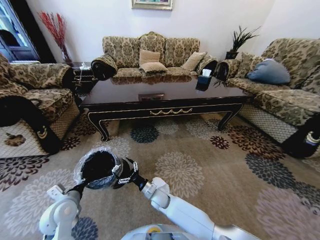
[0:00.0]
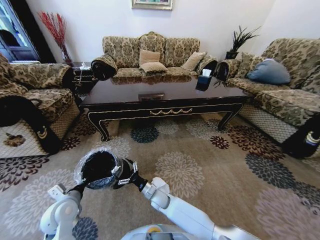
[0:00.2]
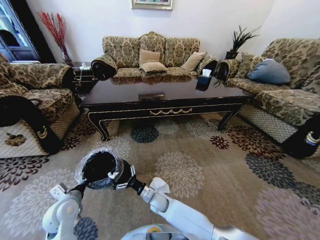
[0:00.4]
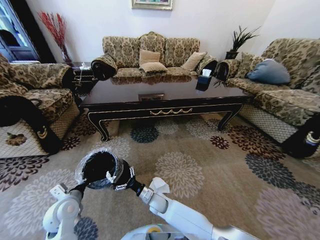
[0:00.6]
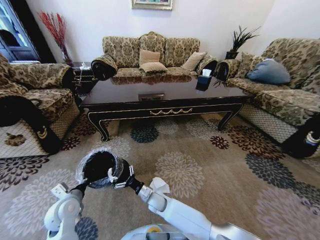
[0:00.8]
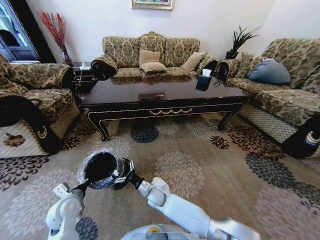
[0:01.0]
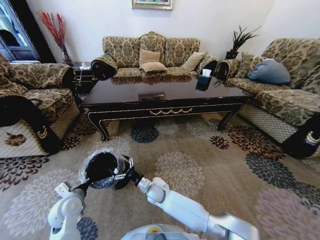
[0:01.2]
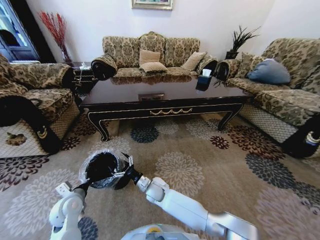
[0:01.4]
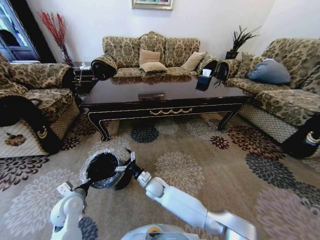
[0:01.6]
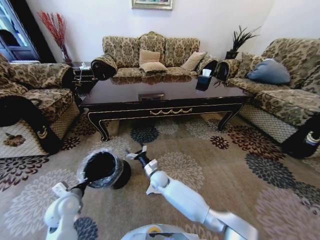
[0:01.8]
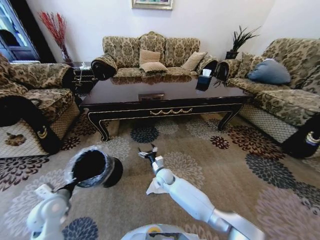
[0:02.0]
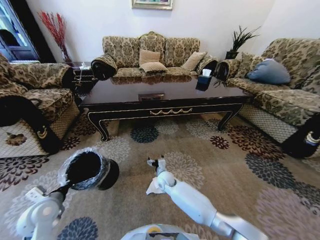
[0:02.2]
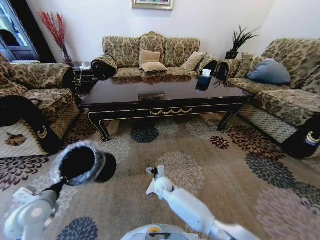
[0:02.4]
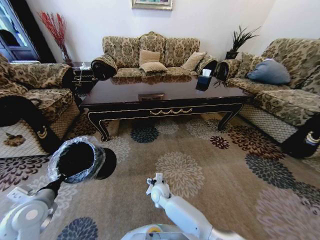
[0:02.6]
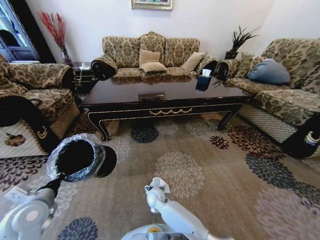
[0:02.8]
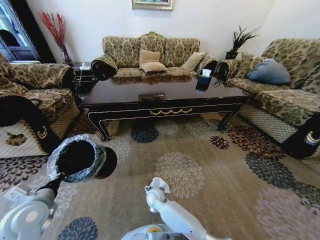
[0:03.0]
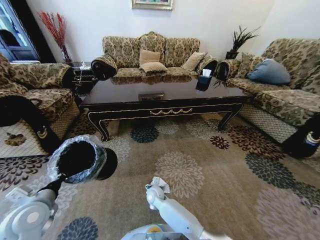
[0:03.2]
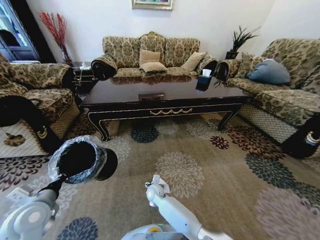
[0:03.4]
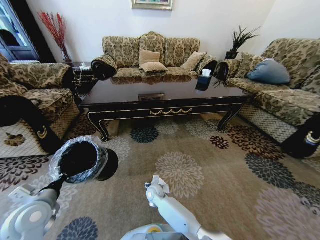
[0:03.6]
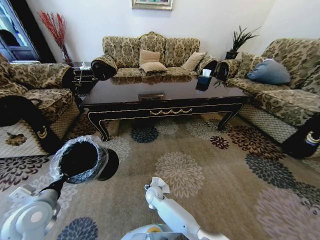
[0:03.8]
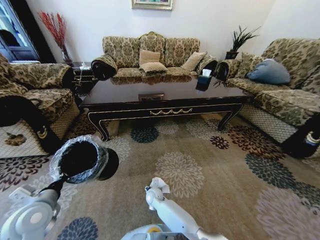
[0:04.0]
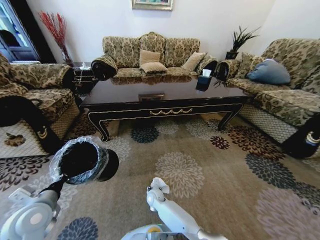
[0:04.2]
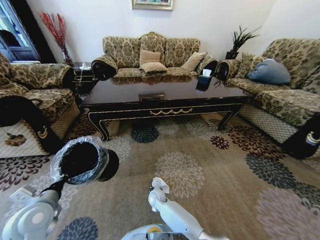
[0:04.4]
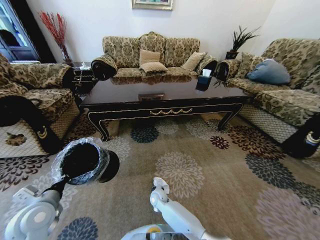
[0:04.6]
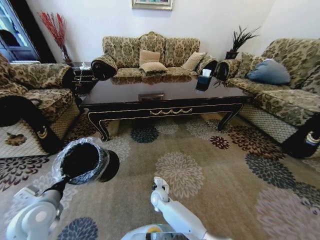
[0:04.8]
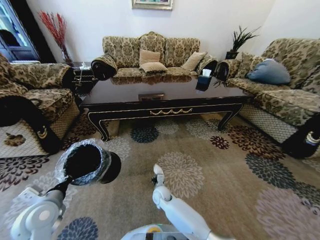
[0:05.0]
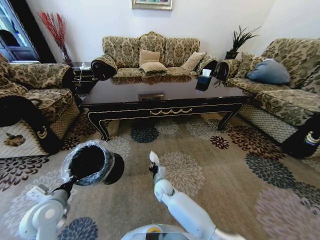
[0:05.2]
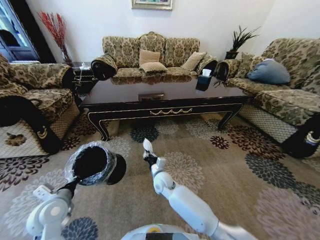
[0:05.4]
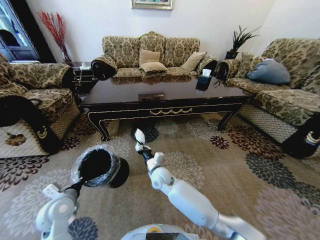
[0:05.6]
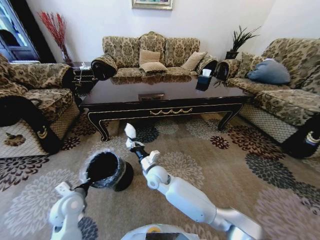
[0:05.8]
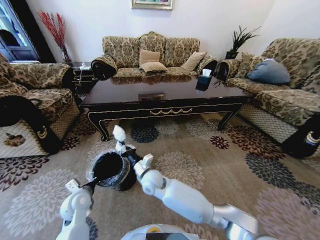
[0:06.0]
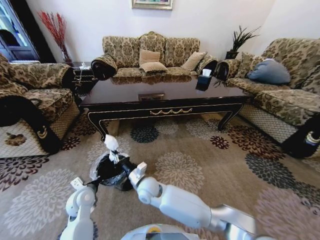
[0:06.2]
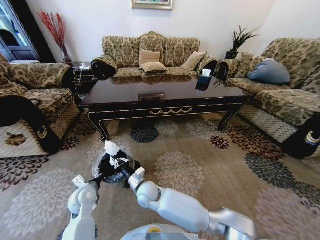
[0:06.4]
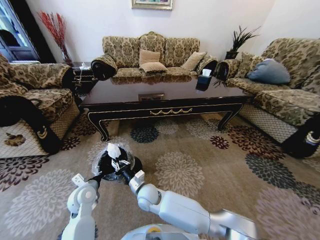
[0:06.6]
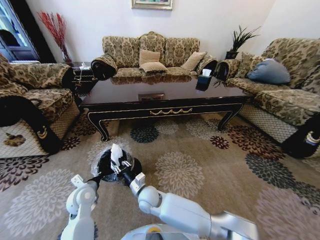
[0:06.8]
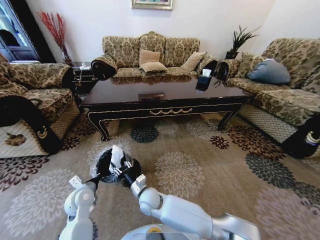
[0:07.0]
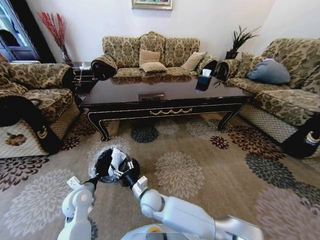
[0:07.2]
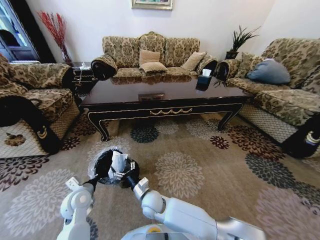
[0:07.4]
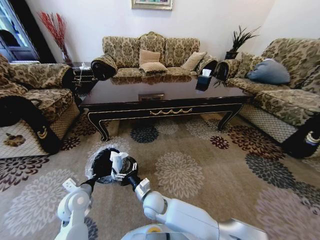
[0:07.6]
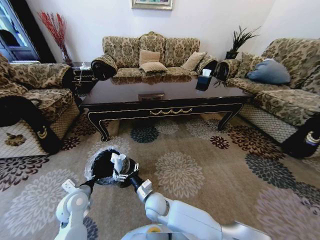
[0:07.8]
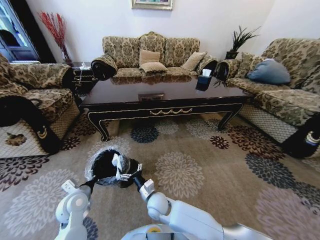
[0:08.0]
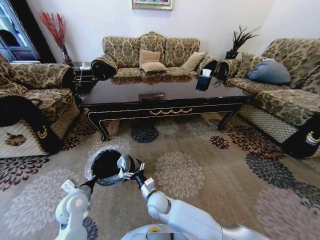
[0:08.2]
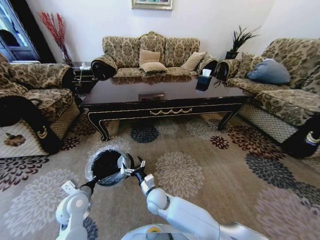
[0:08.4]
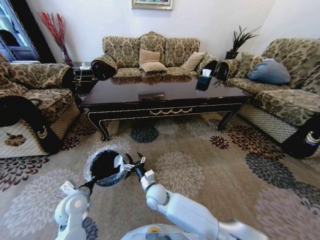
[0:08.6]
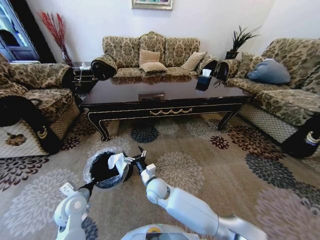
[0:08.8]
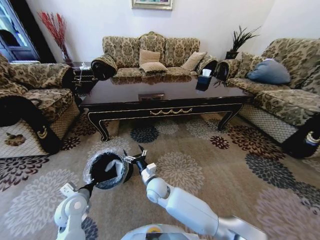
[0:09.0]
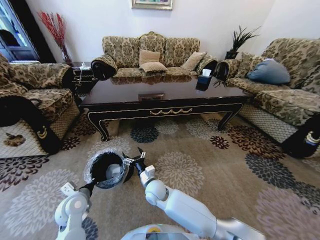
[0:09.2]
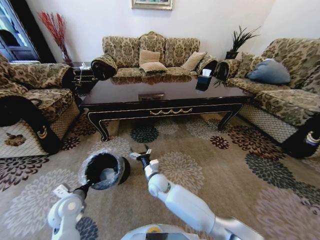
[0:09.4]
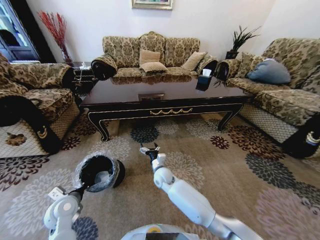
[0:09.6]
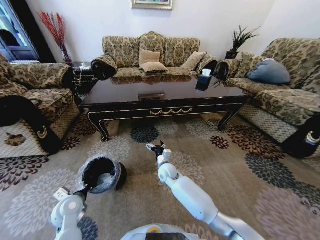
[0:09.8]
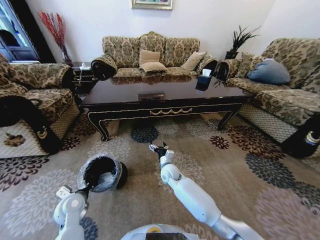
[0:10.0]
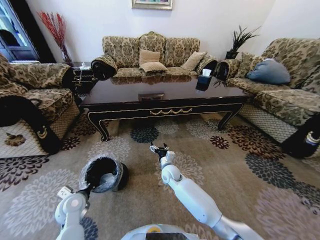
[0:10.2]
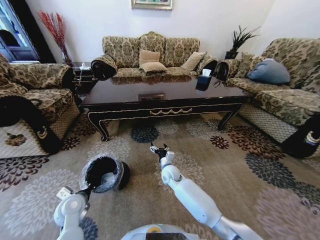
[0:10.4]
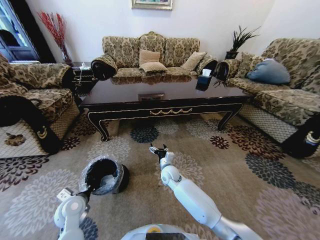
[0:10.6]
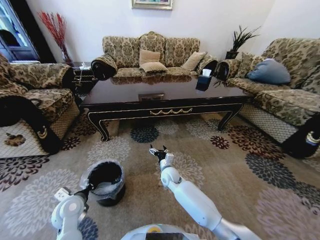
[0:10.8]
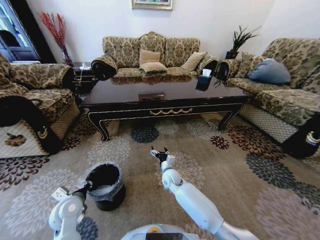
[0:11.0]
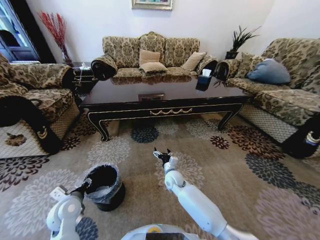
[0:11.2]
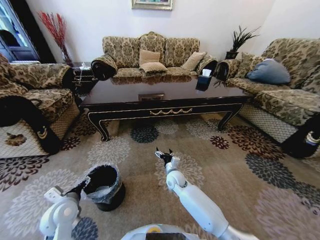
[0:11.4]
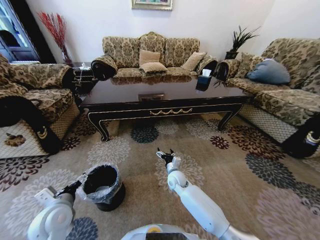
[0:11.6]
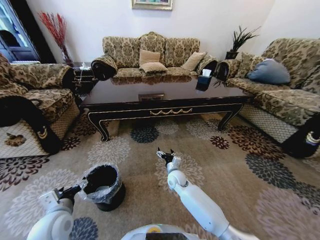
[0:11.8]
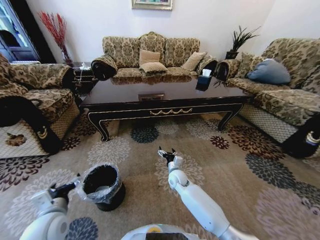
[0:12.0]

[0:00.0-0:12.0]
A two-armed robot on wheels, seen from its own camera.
Task of the whole recording: Move to the front of the table and pick up the trash from the floor, then place it into the trash bin.
0:00.0 to 0:01.6: The right gripper ends up about 5 cm from where it was.
0:01.6 to 0:03.0: The left gripper heads upward, covering approximately 10 cm.
0:03.0 to 0:04.4: The right gripper closes its fingers.
0:04.4 to 0:06.0: The left gripper travels downward, forward and to the right by roughly 15 cm. Meanwhile the right gripper goes about 20 cm upward, and closes up.
0:06.0 to 0:07.6: The right gripper is displaced downward and backward by some 10 cm, and opens.
0:07.6 to 0:09.0: The right gripper shifts some 5 cm forward.
0:09.0 to 0:10.4: The right gripper travels forward and to the right by some 10 cm.
0:10.4 to 0:12.0: The left gripper travels upward and backward by some 10 cm, and opens its fingers.

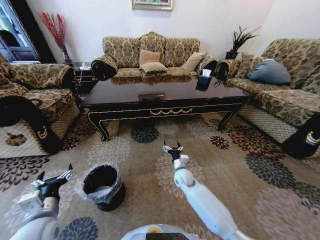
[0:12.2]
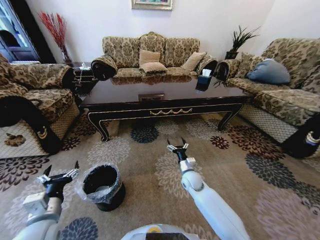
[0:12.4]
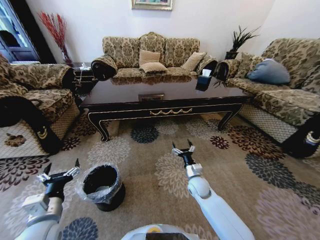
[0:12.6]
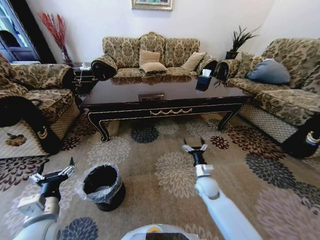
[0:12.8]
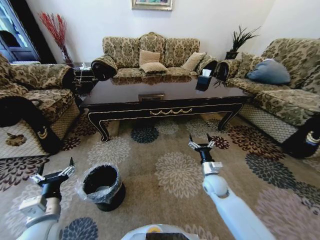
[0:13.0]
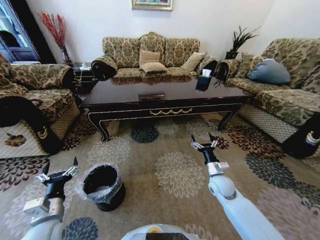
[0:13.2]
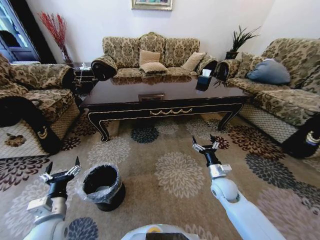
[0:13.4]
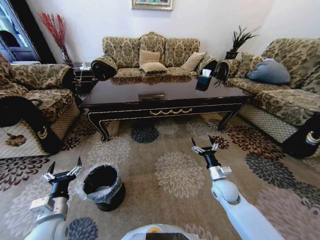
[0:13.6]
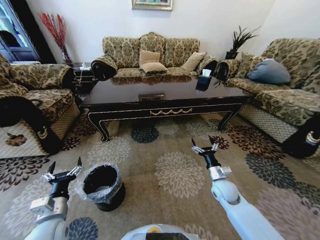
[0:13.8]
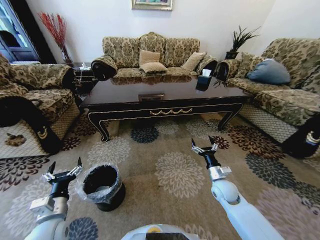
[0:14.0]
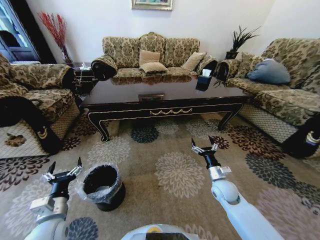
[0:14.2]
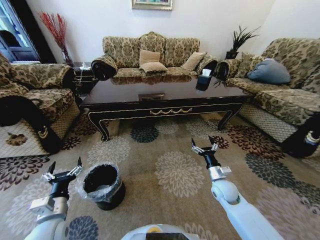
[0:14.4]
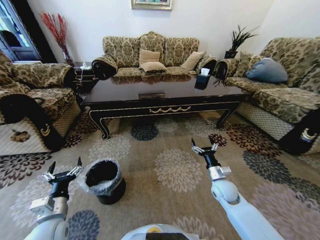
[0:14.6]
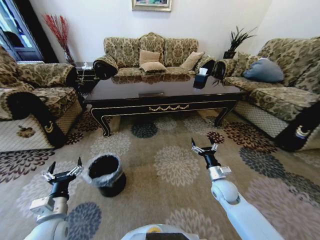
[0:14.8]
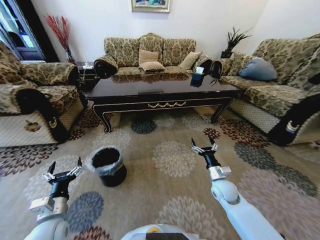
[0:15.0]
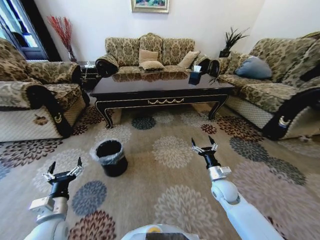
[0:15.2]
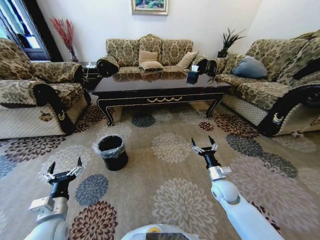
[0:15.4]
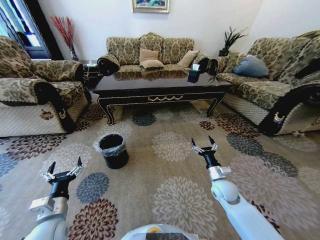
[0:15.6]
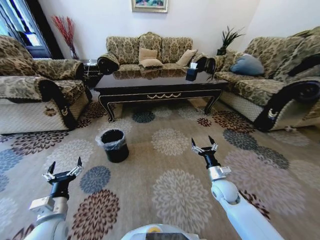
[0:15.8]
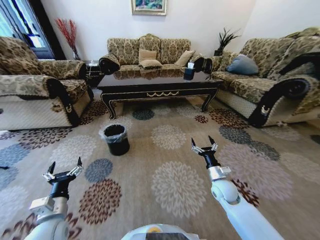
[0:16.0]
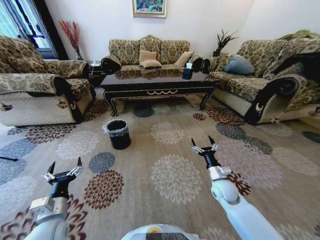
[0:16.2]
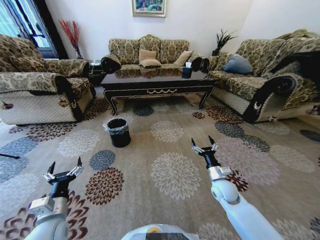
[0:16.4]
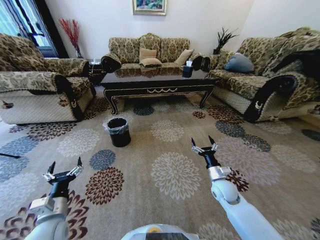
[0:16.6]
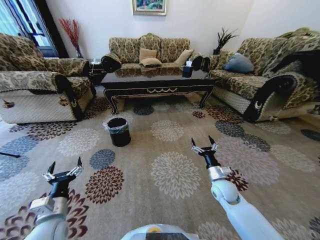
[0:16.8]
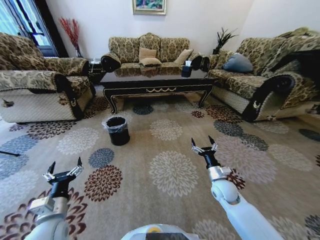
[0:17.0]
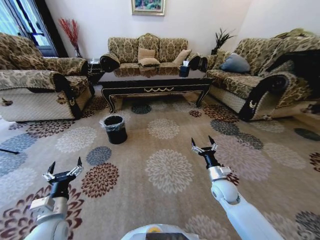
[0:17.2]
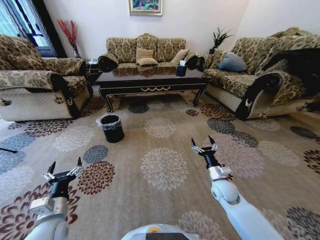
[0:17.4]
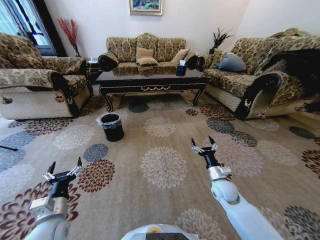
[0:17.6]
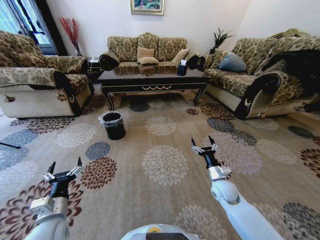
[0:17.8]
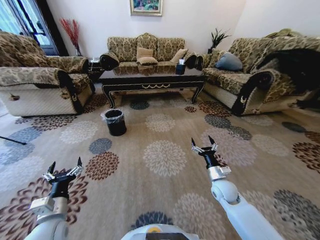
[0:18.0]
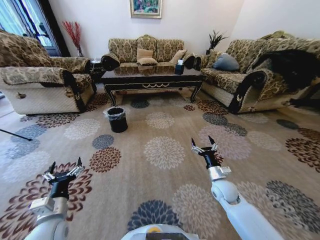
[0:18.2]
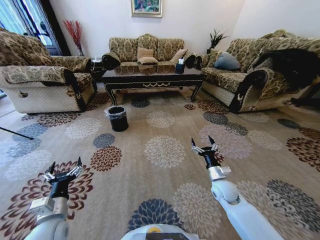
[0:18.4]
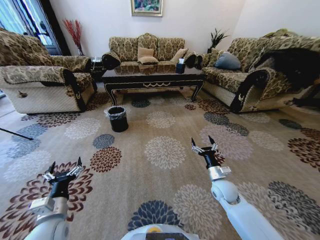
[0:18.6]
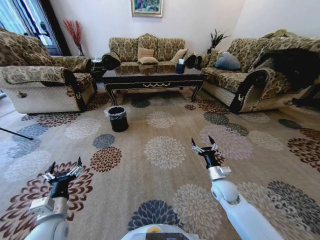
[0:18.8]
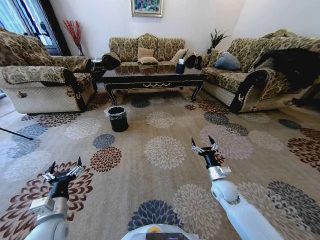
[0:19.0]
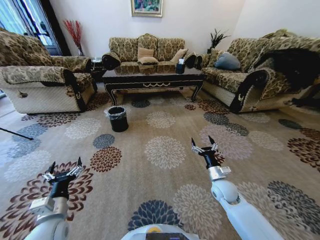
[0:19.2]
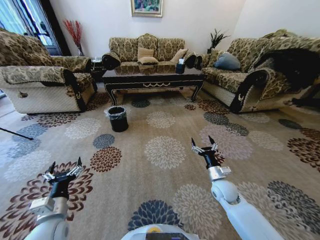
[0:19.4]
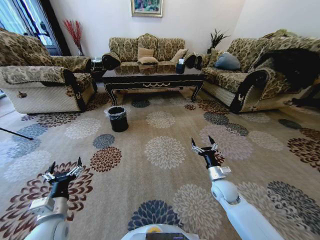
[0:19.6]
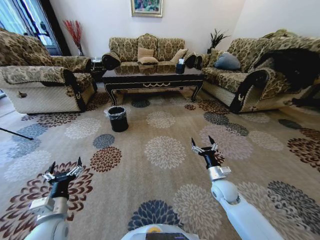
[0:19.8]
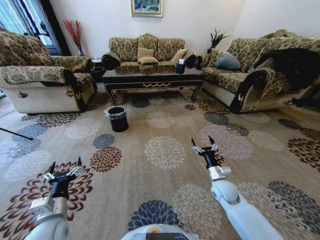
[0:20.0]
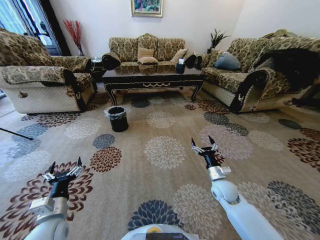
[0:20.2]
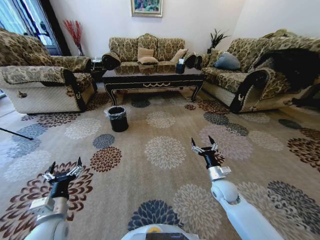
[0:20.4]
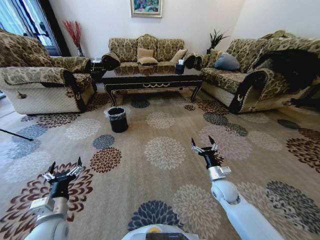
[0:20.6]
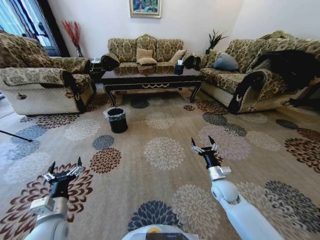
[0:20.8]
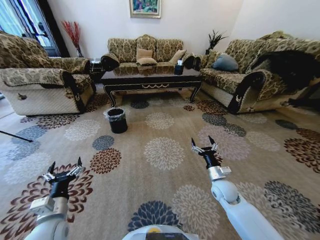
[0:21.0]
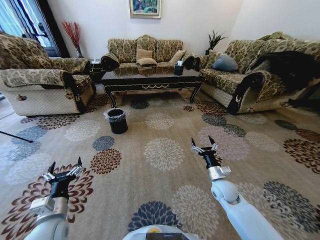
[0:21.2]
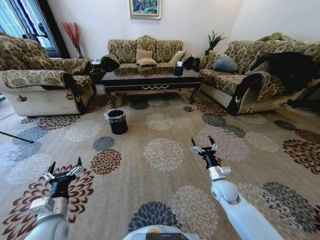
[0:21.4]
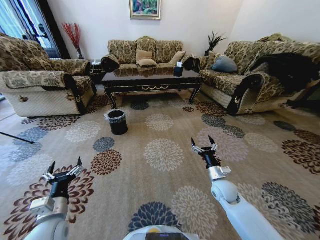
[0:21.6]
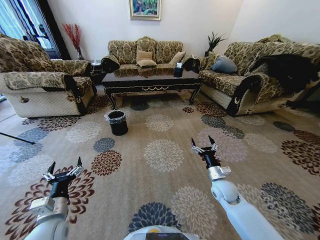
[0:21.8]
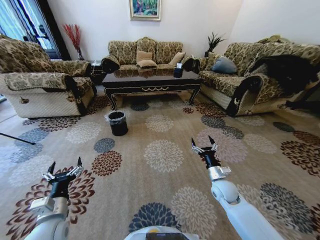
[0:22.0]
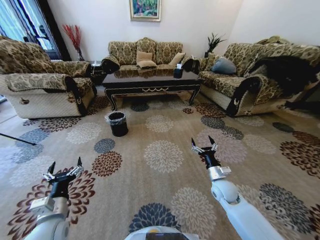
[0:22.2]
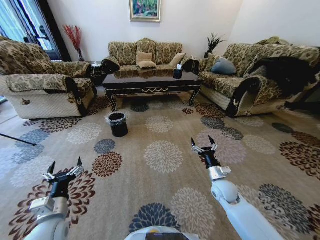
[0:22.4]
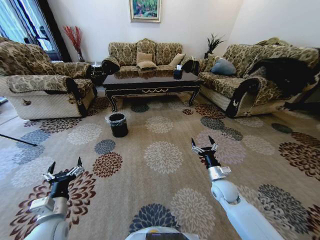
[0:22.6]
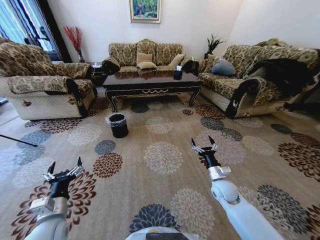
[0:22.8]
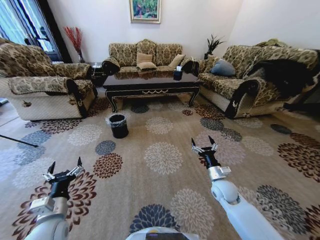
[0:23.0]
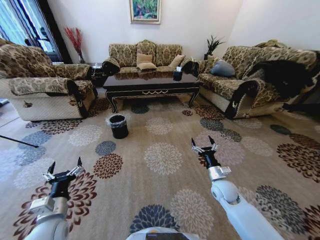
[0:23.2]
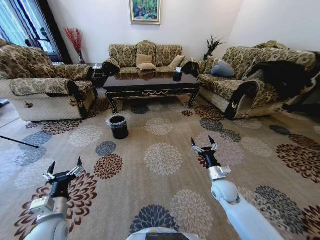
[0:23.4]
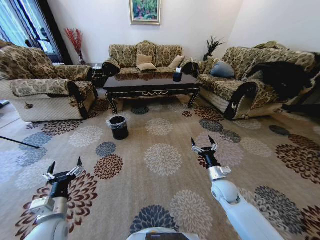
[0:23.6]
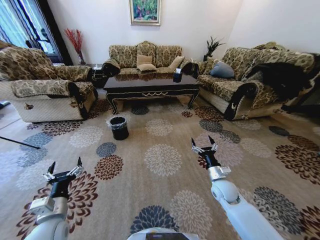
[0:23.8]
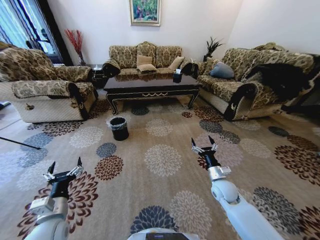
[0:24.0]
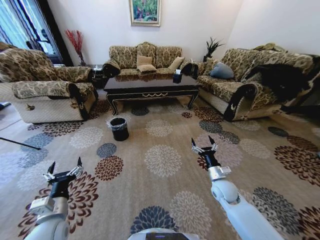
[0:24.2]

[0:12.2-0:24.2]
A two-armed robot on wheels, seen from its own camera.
Task of the whole recording: Move to the front of the table and pick up the trash from the floor, then place it into the trash bin.
0:12.2 to 0:13.8: The right gripper is displaced to the right and backward by some 20 cm.
0:18.2 to 0:21.2: Neither gripper changes place.
